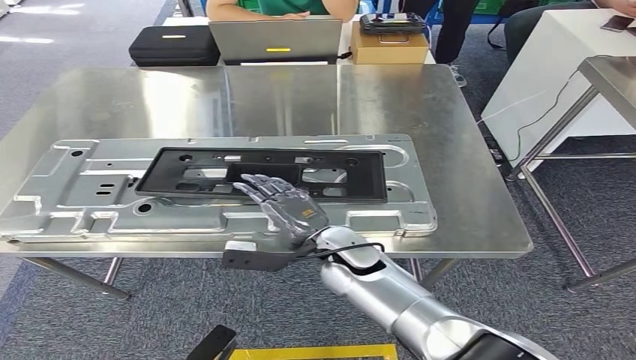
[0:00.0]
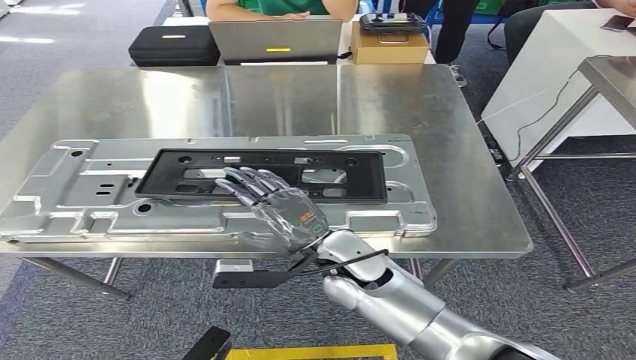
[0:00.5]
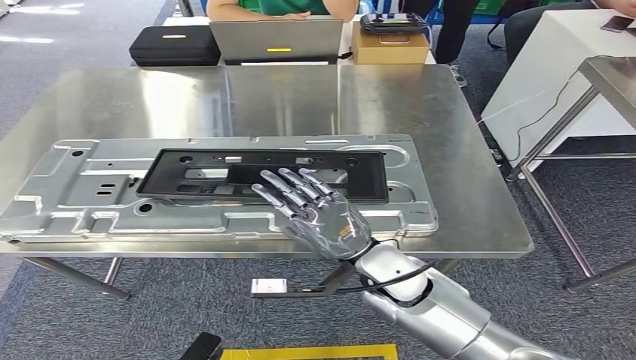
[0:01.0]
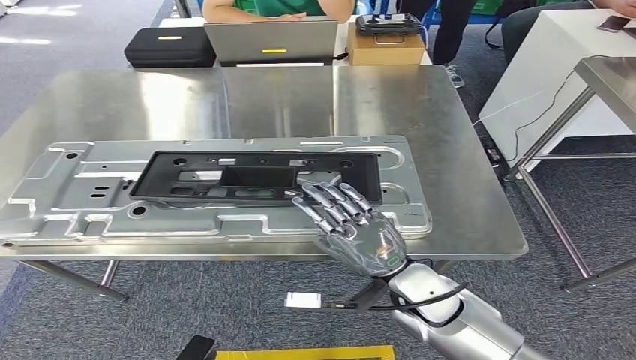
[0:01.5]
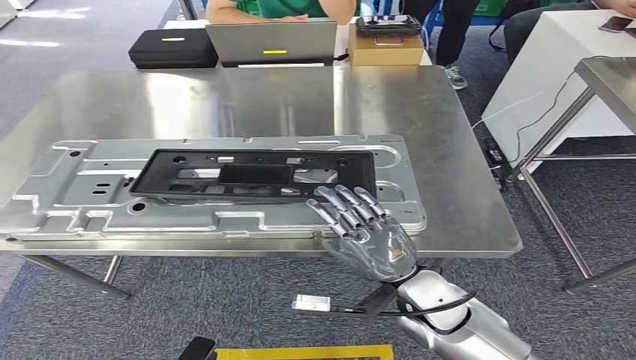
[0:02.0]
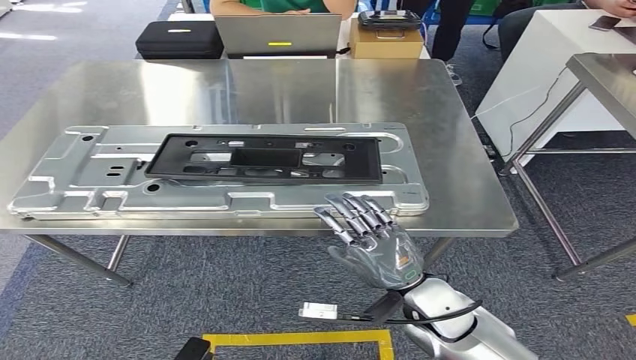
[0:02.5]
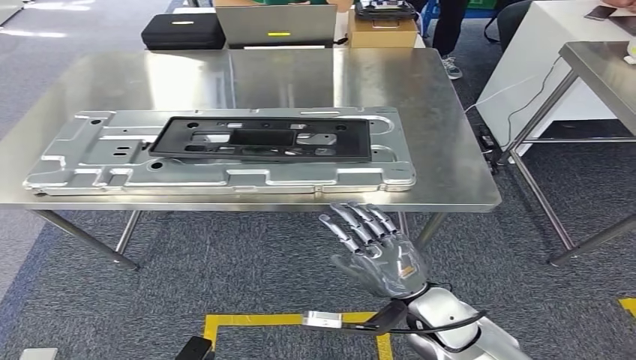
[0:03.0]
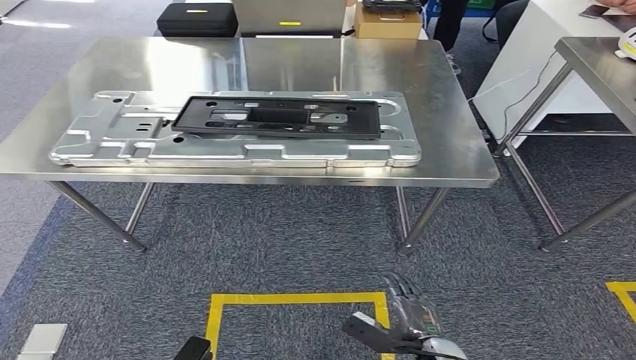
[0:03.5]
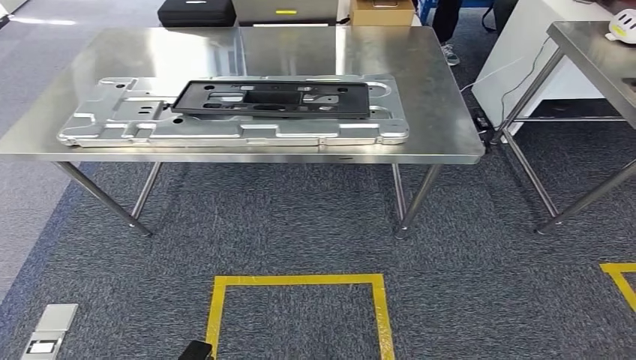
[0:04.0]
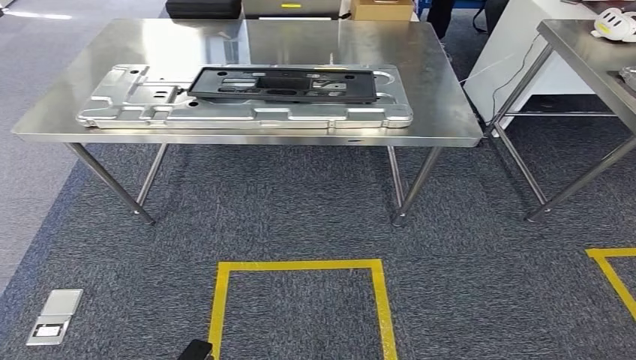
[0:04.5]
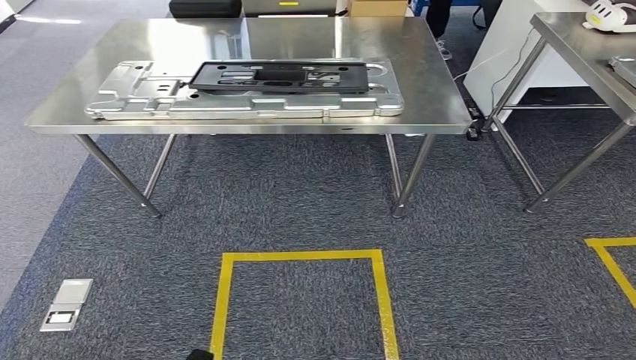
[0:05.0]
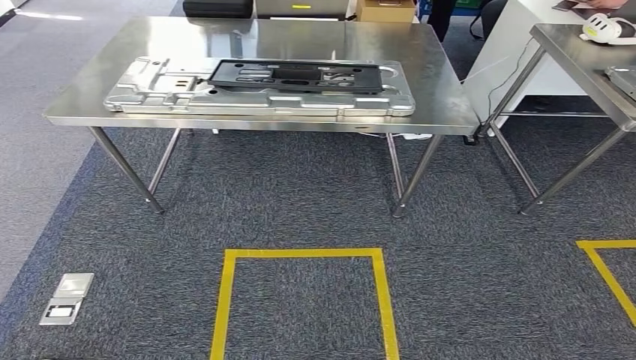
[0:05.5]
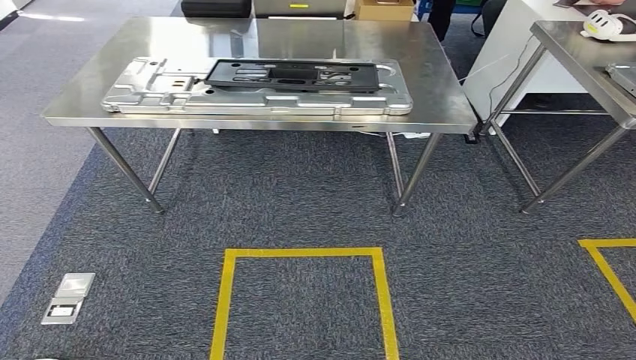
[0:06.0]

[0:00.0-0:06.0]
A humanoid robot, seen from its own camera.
Step, 0:00.0 to 0:02.0: Insert the small component into the corresponding slot on the workbench.
Step, 0:02.5 to 0:06.0: Move to the initial position of the workbench.
